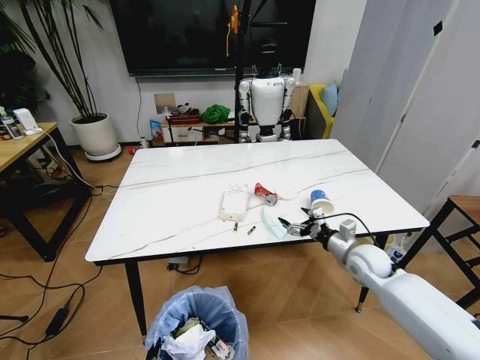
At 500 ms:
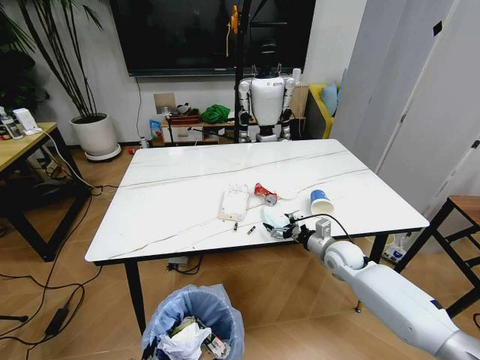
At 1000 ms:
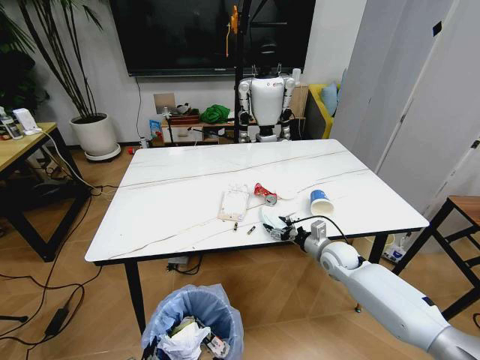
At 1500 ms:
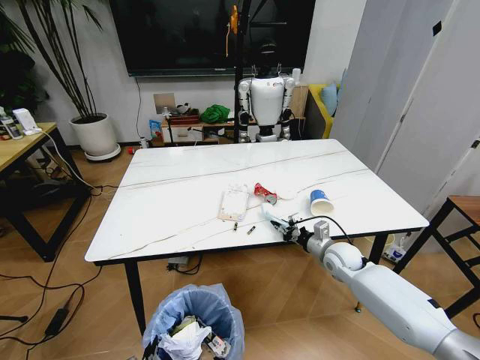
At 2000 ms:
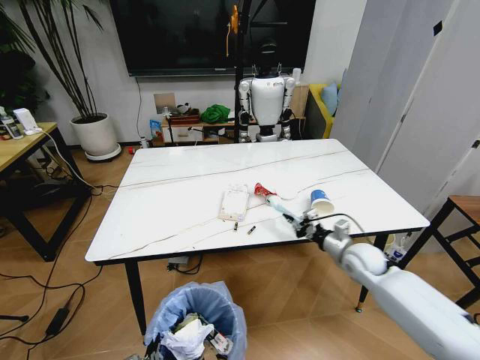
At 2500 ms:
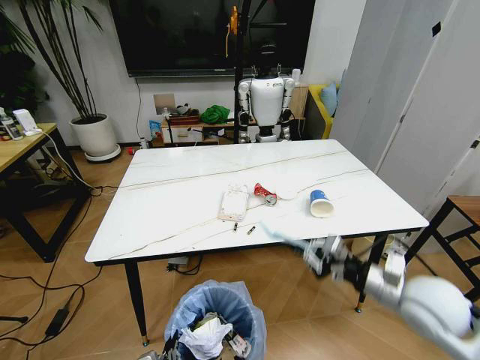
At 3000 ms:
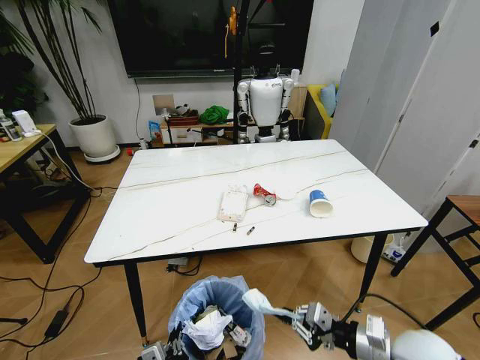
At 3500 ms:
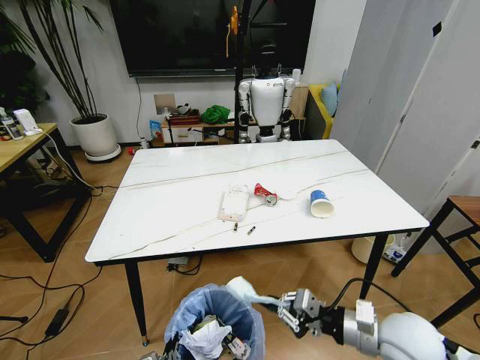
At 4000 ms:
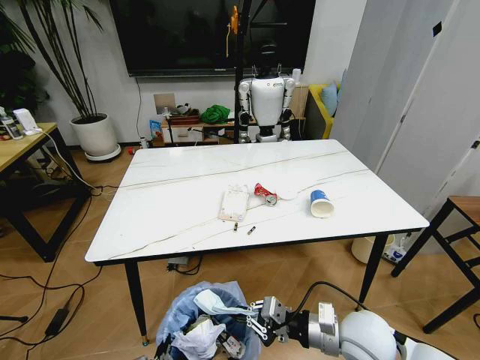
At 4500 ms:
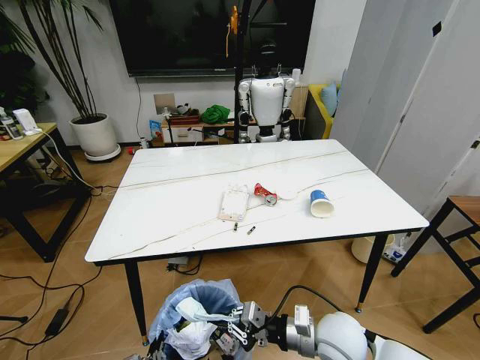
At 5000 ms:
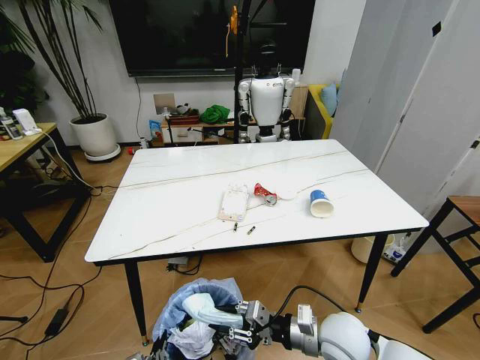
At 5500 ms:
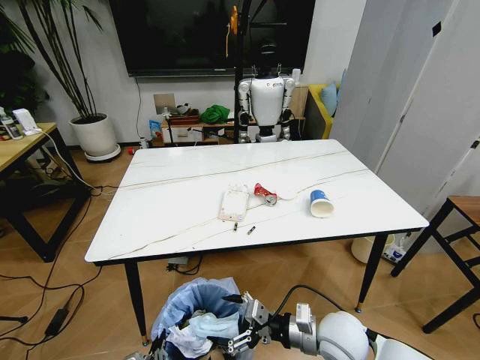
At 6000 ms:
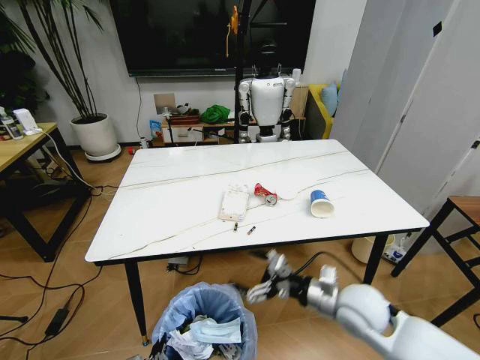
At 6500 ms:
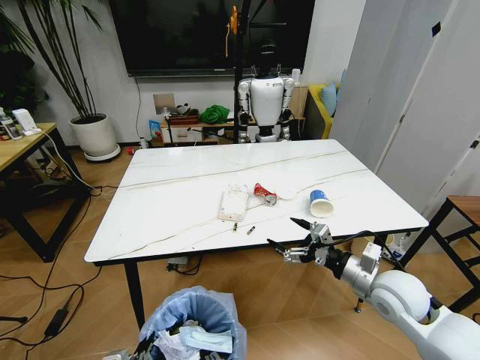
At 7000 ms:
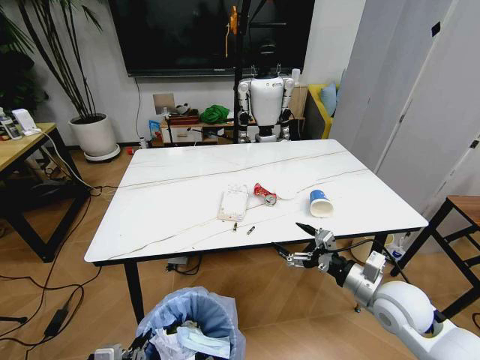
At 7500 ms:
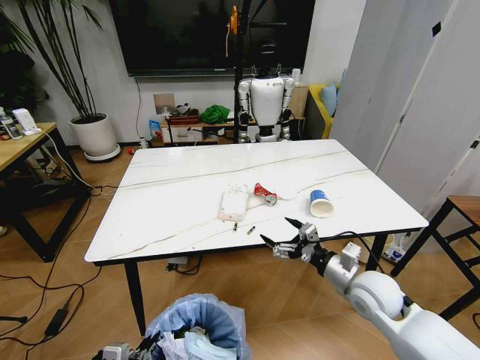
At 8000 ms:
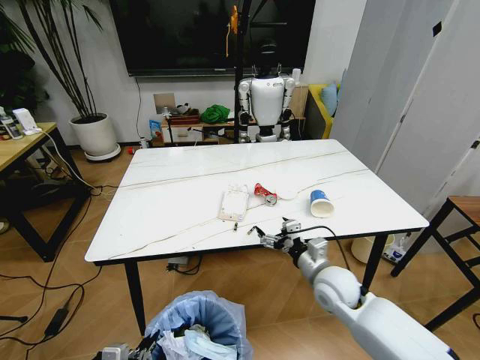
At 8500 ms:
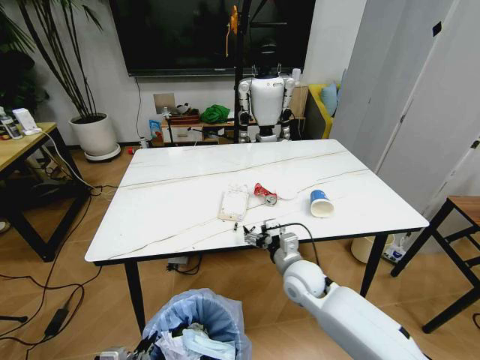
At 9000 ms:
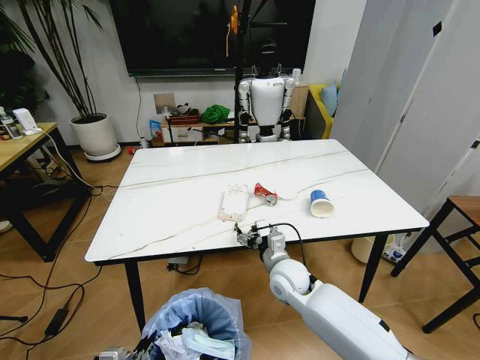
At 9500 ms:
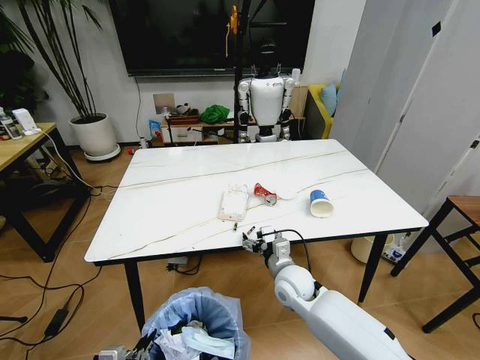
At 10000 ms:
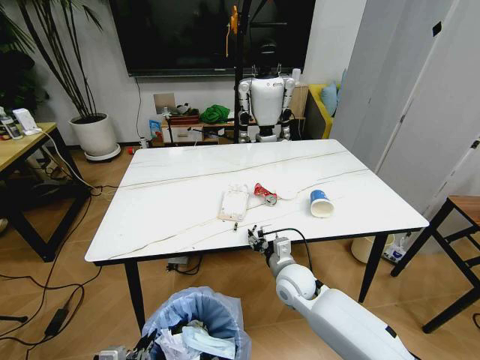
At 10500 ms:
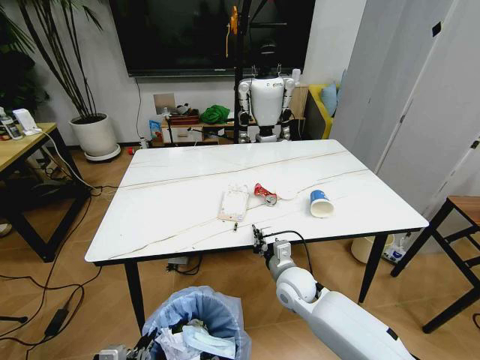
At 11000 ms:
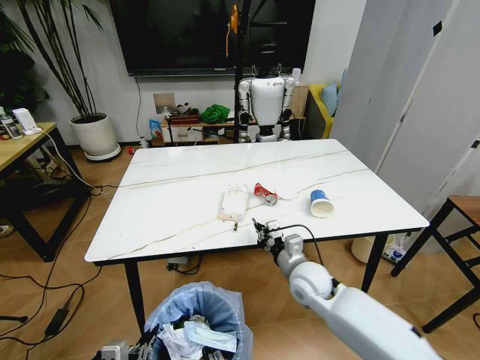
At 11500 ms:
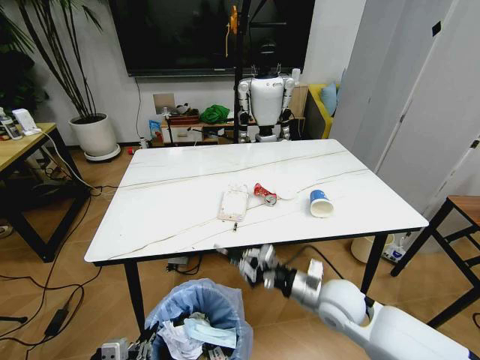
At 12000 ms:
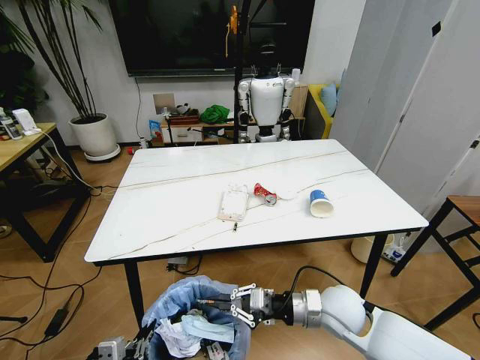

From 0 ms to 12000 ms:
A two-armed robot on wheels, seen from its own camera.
Task of the whole recording: Pick up the trash bin and place the trash from the table into it.
From 0 ms to 2000 ms: The right gripper closes.
From 2000 ms to 4000 ms: The right gripper shifts roughly 20 cm backward and to the left.
From 4000 ms to 6000 ms: The right gripper shifts roughly 5 cm forward, and opens.
From 6000 ms to 8000 ms: The left gripper goes about 10 cm to the left and upward. Meanwhile the right gripper heads forward, covering roughly 5 cm, and travels to the right and back again, approximately 5 cm each way.
From 8000 ms to 10000 ms: The right gripper heads to the left, covering roughly 10 cm, and closes up.
From 10000 ms to 12000 ms: The right gripper is displaced backward and to the right by some 10 cm, and closes its fingers.

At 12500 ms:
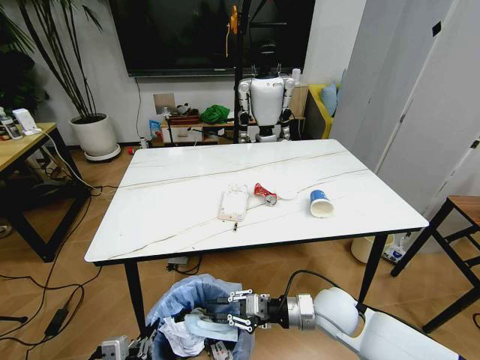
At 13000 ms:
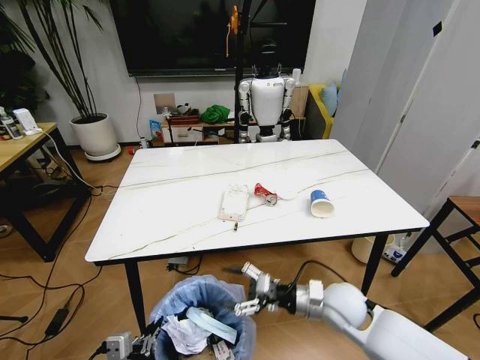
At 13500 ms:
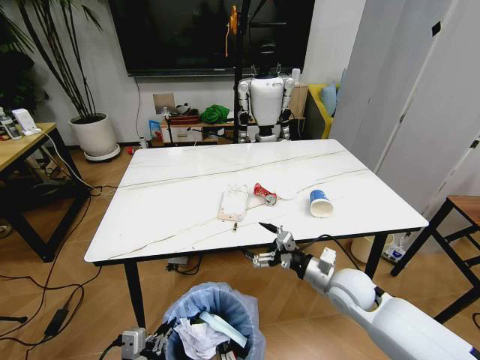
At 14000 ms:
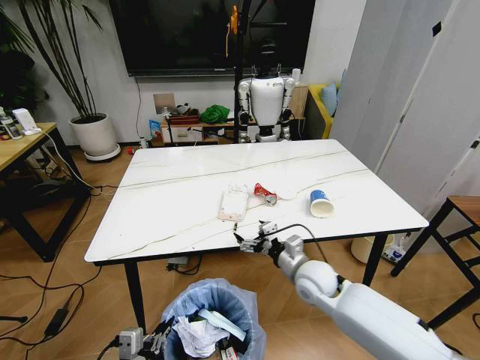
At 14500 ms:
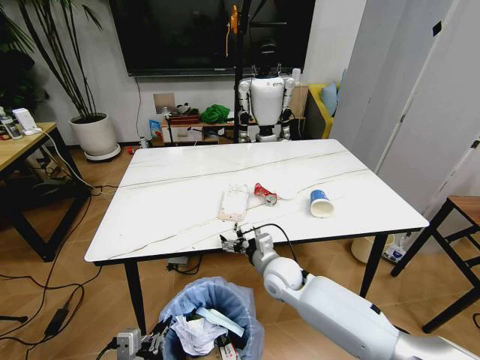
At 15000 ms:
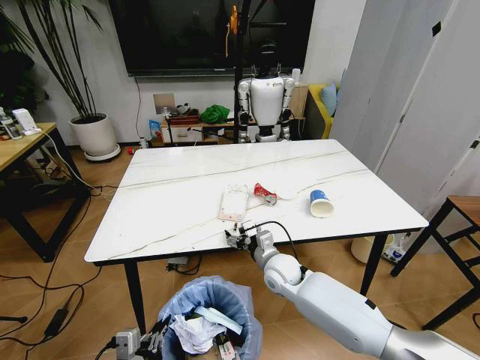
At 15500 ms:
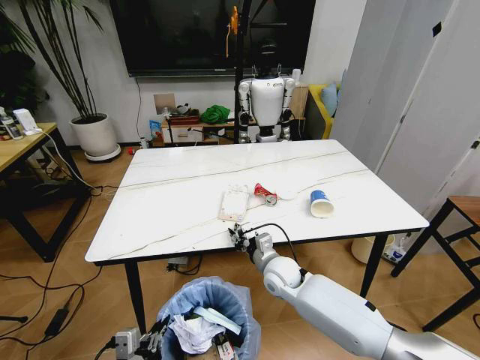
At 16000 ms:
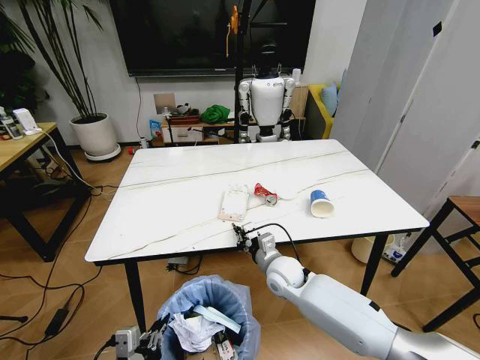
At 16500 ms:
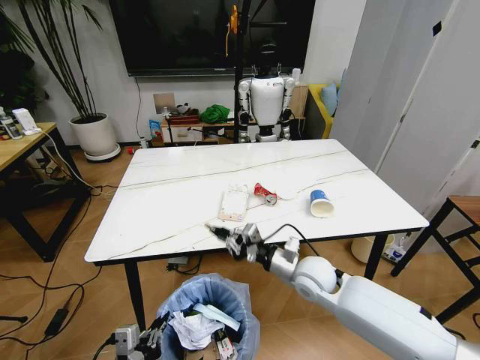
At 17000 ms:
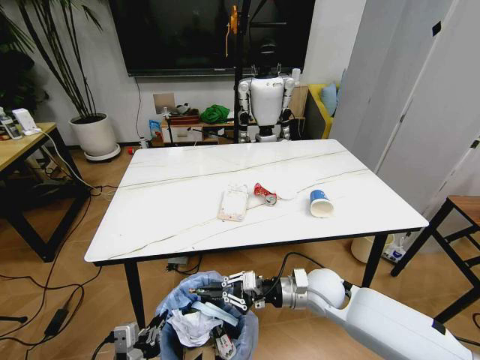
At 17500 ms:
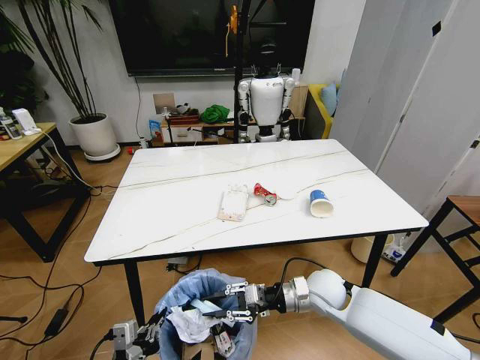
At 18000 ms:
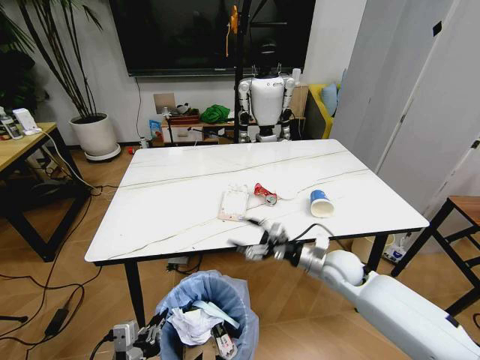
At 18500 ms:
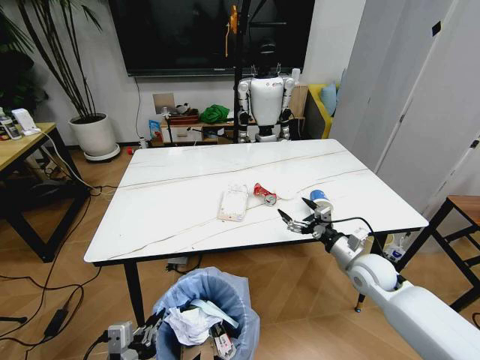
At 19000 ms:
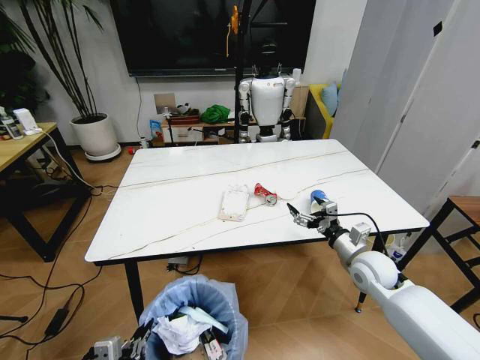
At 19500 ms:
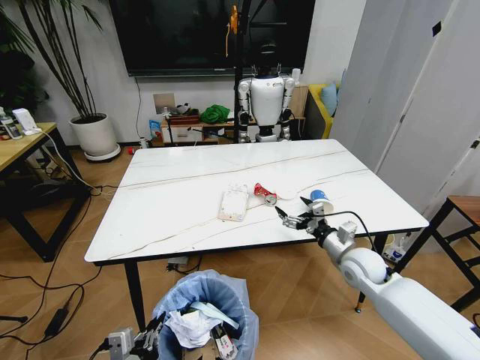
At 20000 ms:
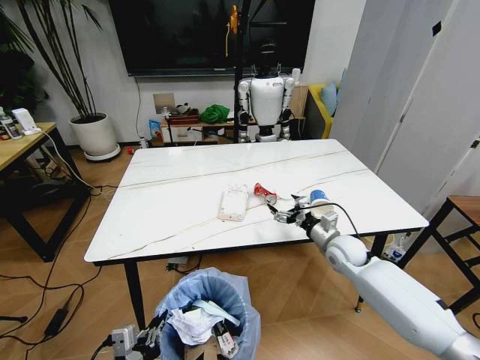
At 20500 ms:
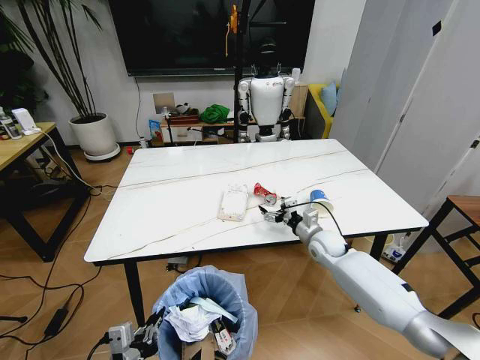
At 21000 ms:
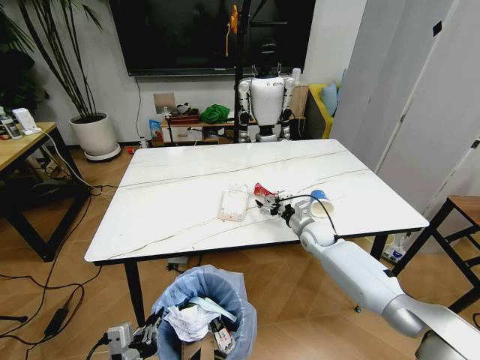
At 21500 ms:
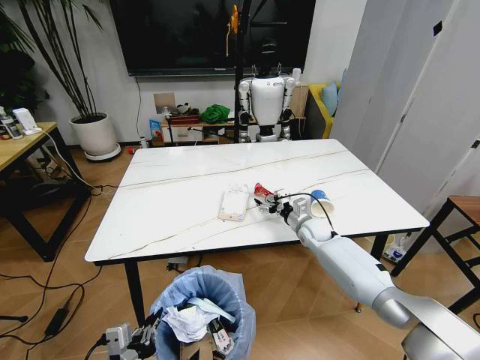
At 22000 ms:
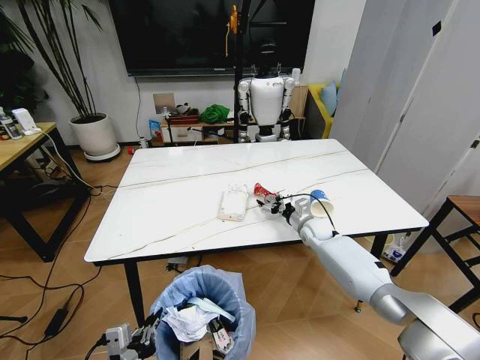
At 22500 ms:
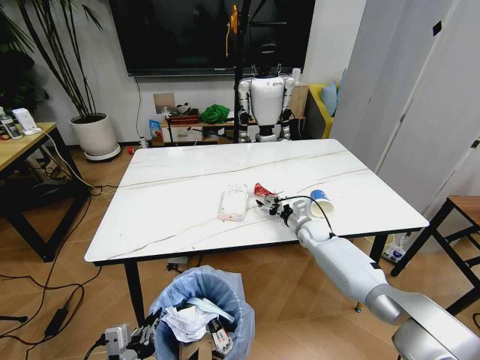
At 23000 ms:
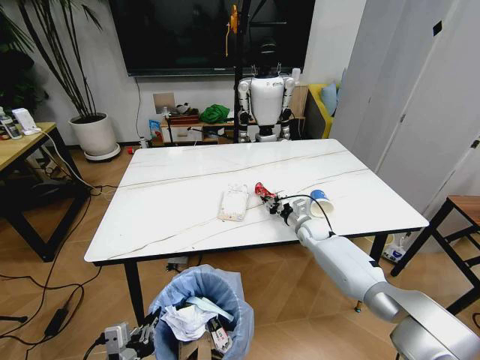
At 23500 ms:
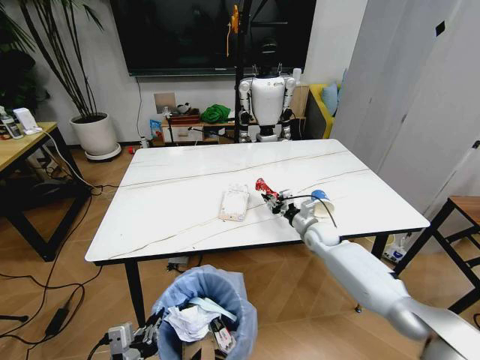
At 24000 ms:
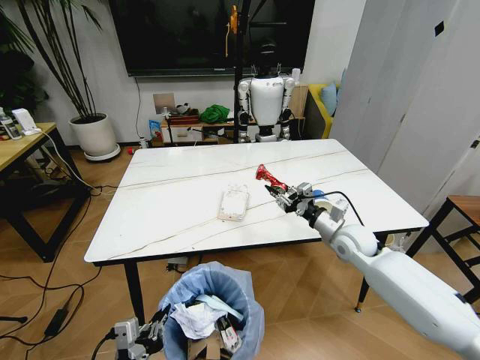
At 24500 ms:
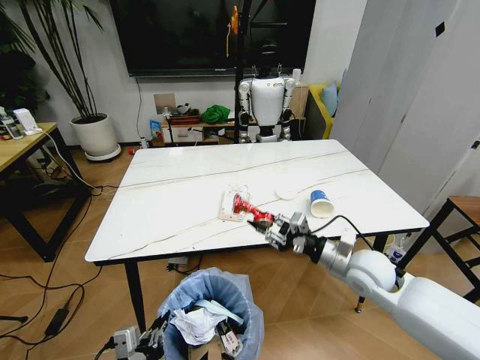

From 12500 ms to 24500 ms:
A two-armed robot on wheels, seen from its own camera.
Task of the whole recording: Pick up the trash bin and place the trash from the table into it.
From 12500 ms to 14500 ms: The right gripper heads to the left and forward, covering some 15 cm, and opens up.
From 14500 ms to 16500 ms: The right gripper moves to the right, about 5 cm, and closes.
From 16500 ms to 18500 ms: The right gripper is displaced to the right by approximately 15 cm, and opens up.
From 18500 ms to 20500 ms: The right gripper travels forward and to the left by roughly 15 cm.
From 20500 ms to 22500 ms: The right gripper moves forward, some 5 cm.
From 22500 ms to 24500 ms: The right gripper goes some 25 cm backward and upward, and closes.

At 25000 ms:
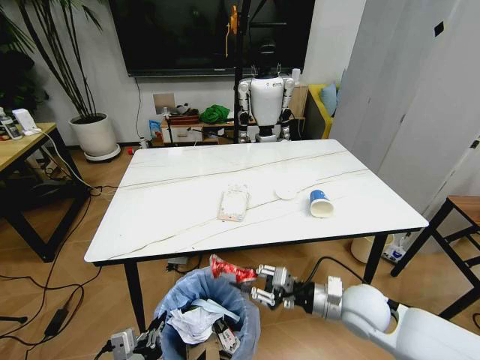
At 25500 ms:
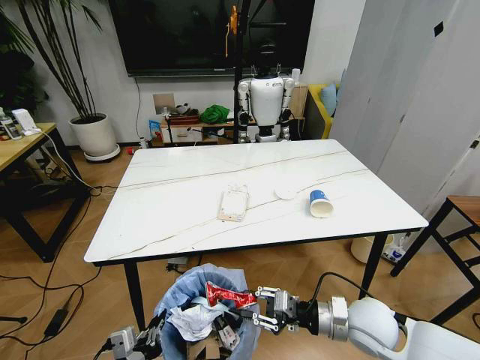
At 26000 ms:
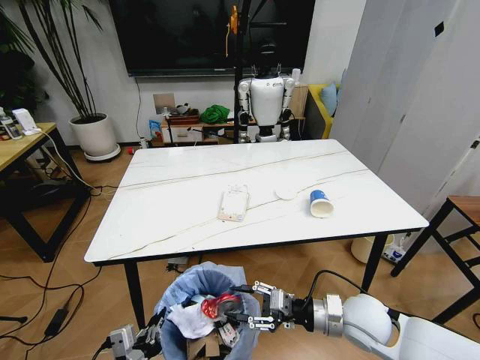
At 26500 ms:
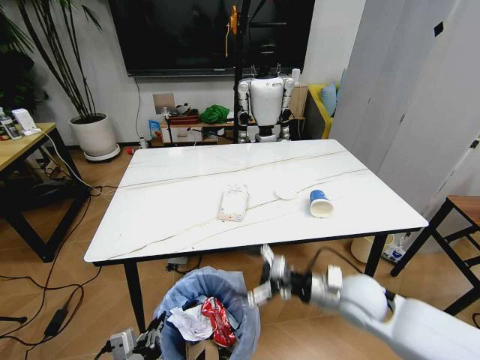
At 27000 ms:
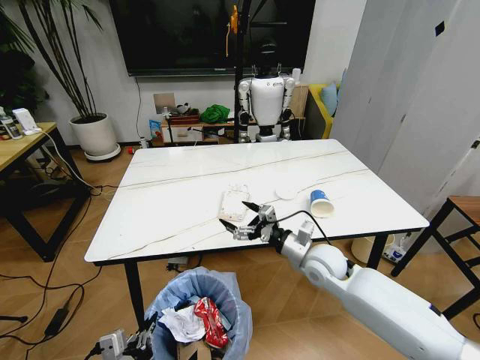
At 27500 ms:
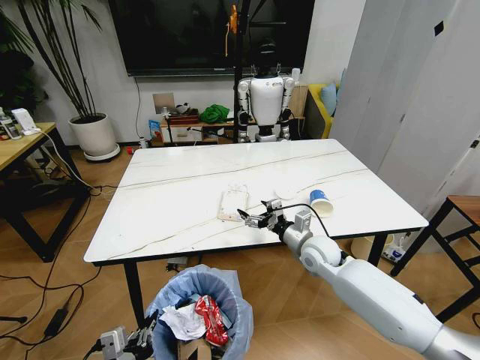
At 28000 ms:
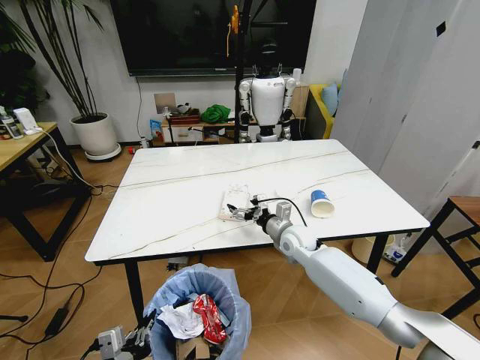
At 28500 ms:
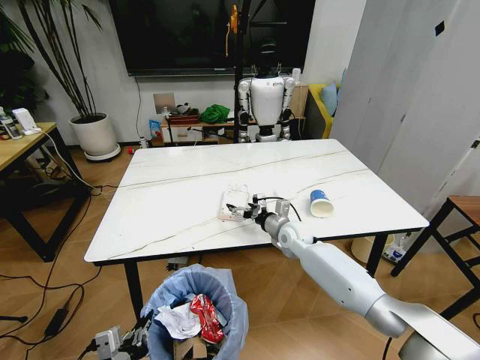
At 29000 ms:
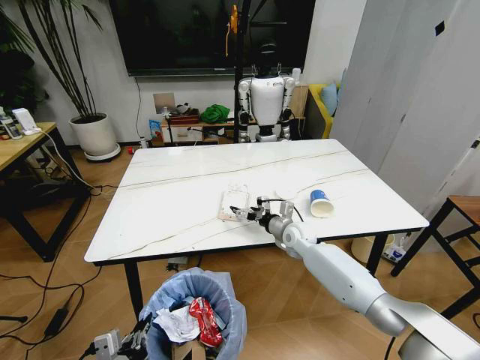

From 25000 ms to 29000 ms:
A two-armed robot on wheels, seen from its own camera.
Task of the whole recording: Pick up the trash bin and place the trash from the table into it.
From 25000 ms to 27000 ms: The right gripper is displaced forward and to the left by some 10 cm, and opens its fingers.
From 27000 ms to 29000 ms: The right gripper heads forward and downward, covering about 15 cm.
